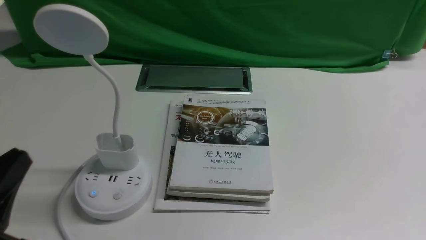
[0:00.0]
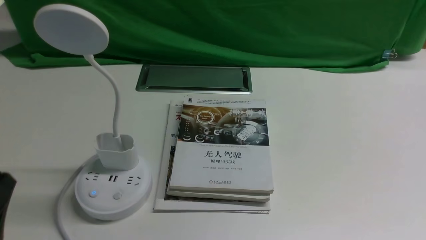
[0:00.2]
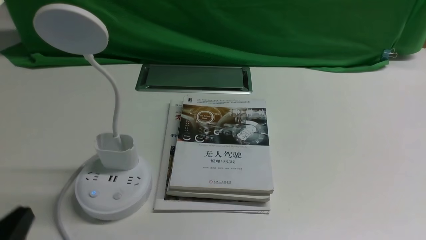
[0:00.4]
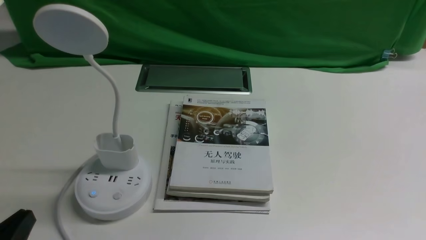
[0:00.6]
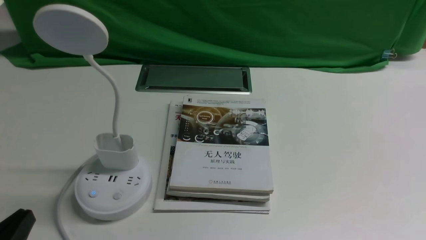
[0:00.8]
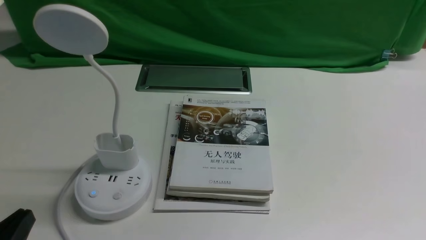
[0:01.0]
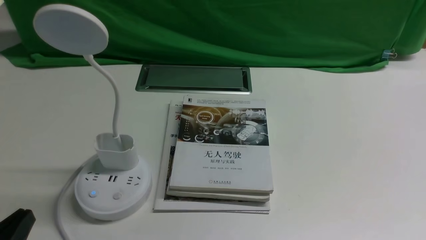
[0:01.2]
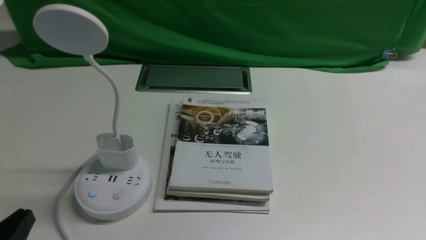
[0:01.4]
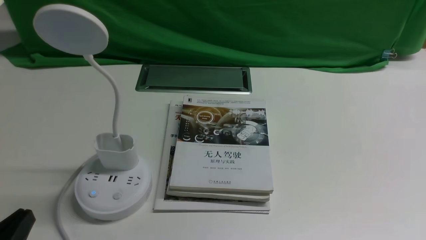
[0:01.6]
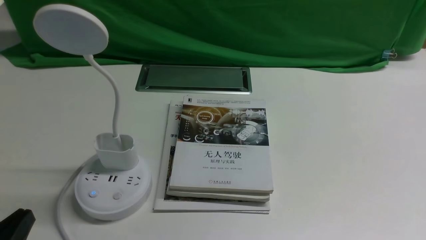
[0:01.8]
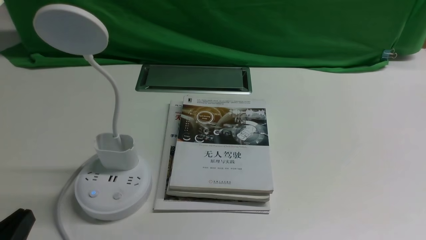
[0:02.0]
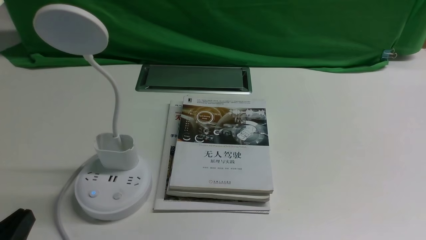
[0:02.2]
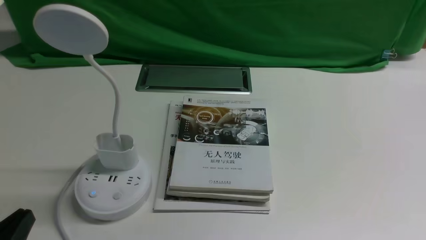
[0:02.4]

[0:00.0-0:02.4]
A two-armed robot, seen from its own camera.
Task of the whole recording: turn off the desk lamp on the white desktop by hand.
0:00.0 to 0:01.2: The left gripper heads downward, covering about 10 cm.
0:01.2 to 0:02.4: The two grippers keep their place.
